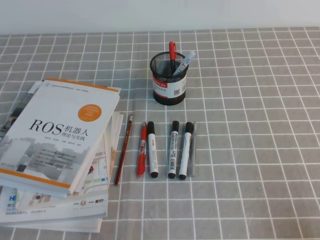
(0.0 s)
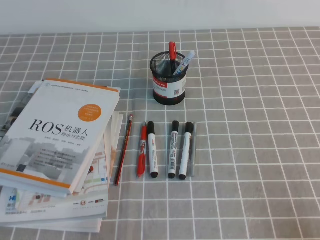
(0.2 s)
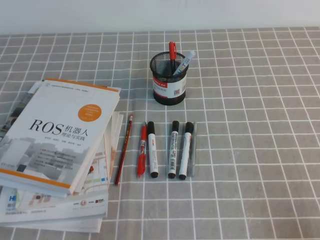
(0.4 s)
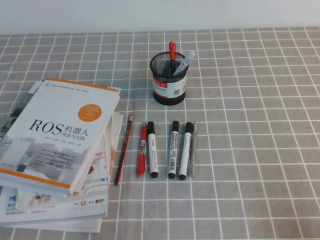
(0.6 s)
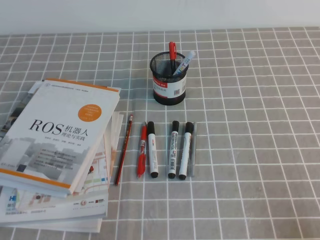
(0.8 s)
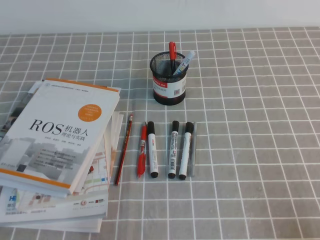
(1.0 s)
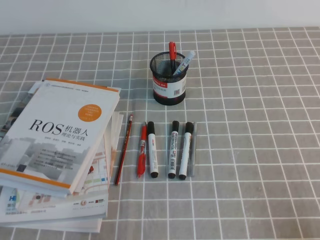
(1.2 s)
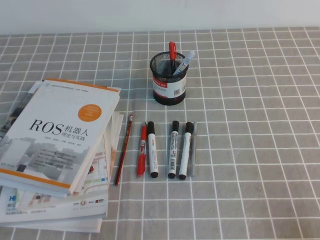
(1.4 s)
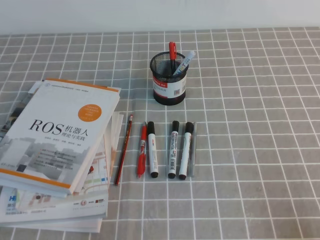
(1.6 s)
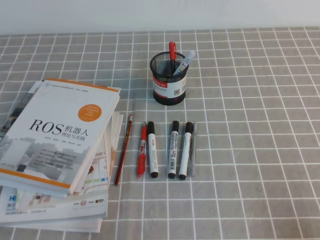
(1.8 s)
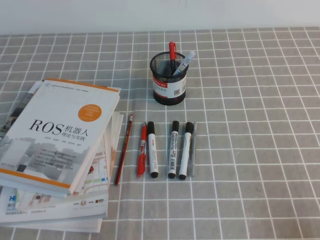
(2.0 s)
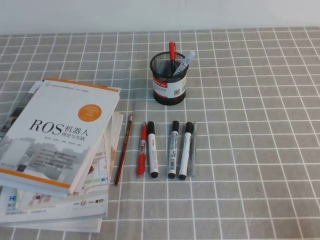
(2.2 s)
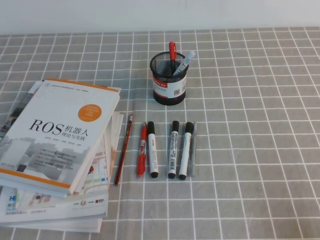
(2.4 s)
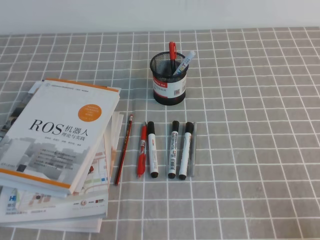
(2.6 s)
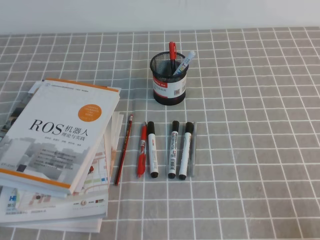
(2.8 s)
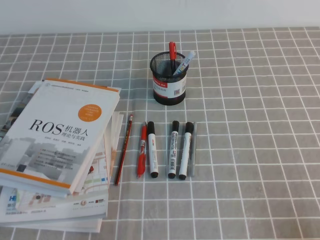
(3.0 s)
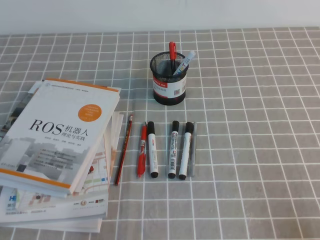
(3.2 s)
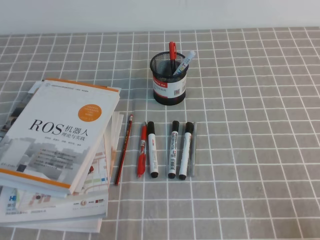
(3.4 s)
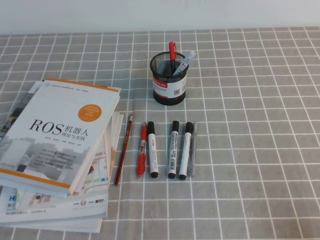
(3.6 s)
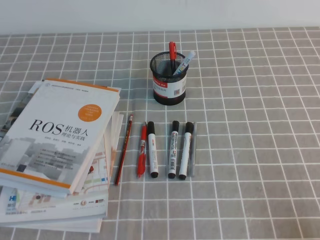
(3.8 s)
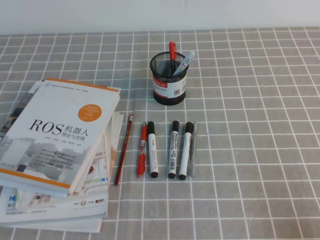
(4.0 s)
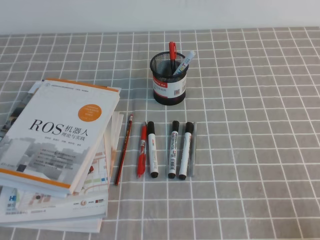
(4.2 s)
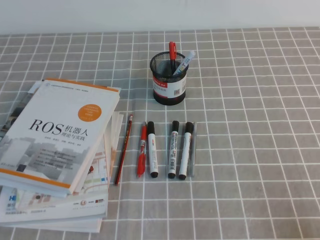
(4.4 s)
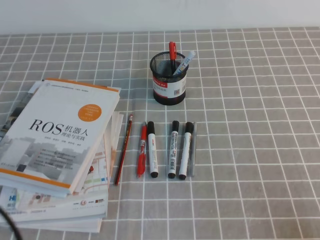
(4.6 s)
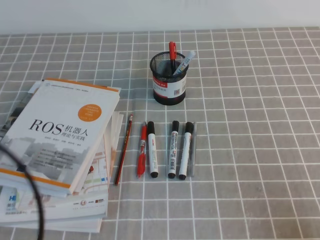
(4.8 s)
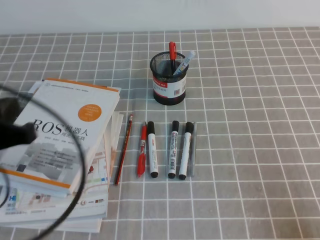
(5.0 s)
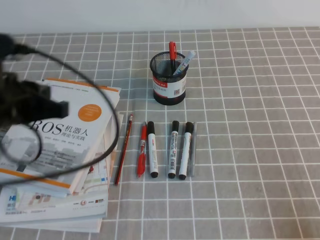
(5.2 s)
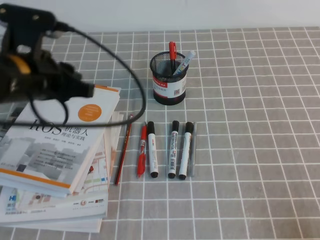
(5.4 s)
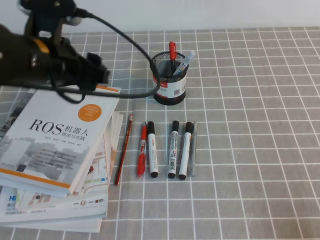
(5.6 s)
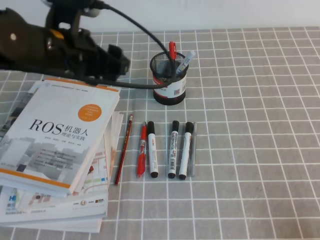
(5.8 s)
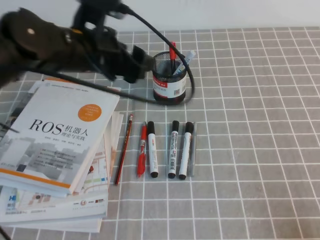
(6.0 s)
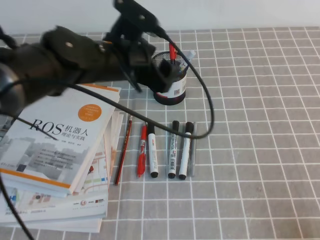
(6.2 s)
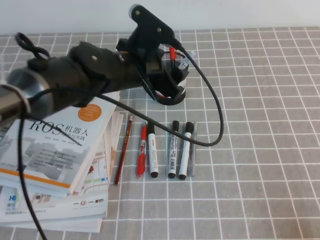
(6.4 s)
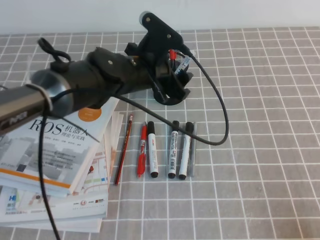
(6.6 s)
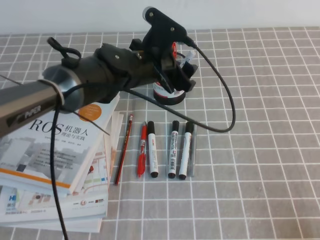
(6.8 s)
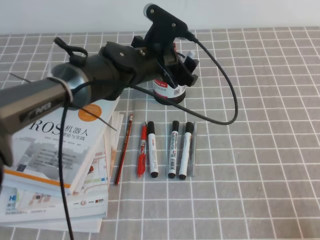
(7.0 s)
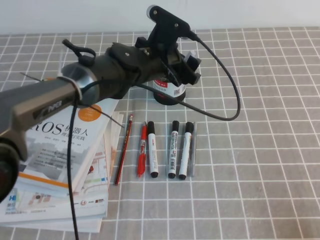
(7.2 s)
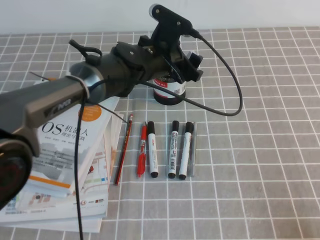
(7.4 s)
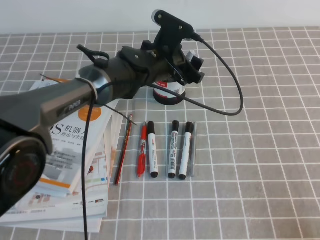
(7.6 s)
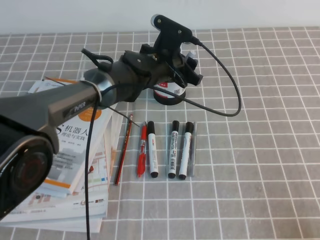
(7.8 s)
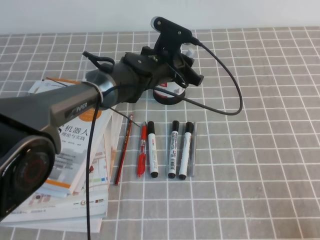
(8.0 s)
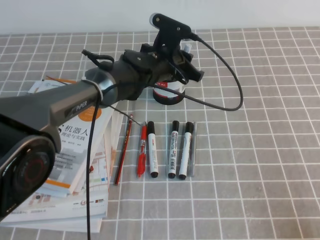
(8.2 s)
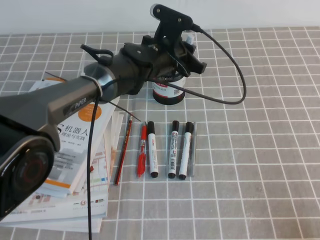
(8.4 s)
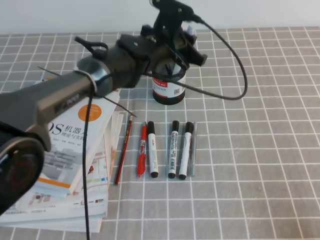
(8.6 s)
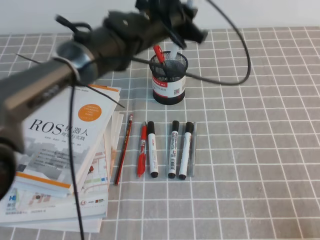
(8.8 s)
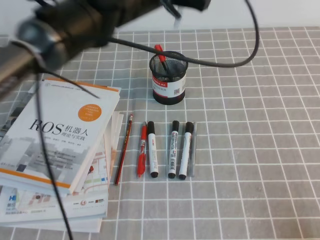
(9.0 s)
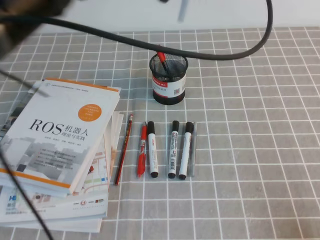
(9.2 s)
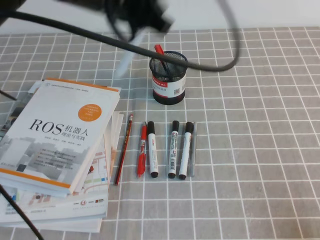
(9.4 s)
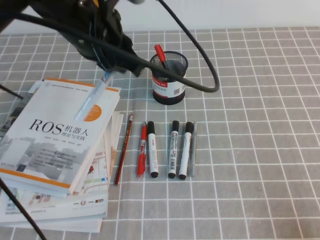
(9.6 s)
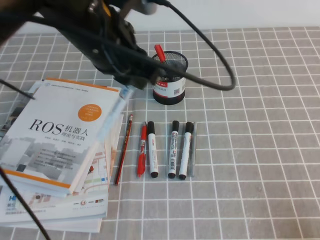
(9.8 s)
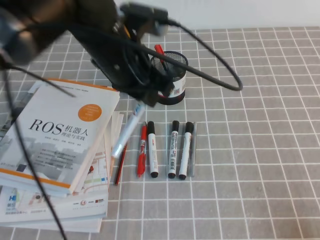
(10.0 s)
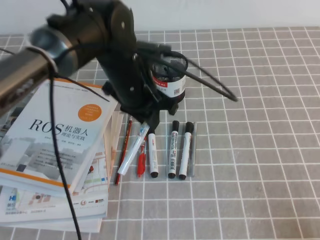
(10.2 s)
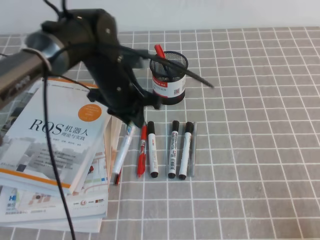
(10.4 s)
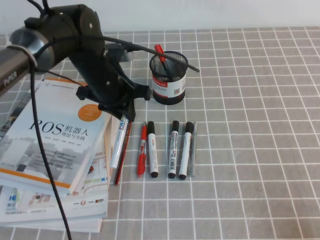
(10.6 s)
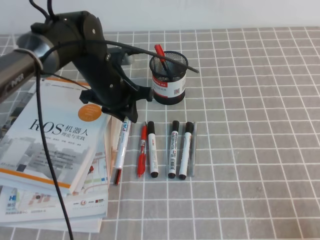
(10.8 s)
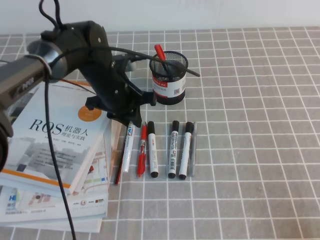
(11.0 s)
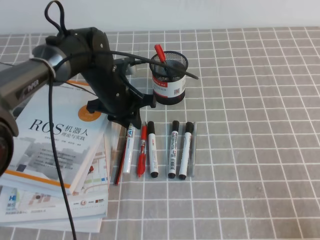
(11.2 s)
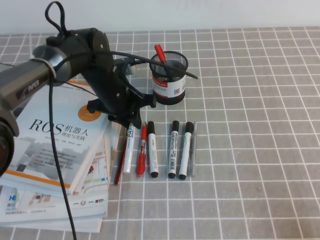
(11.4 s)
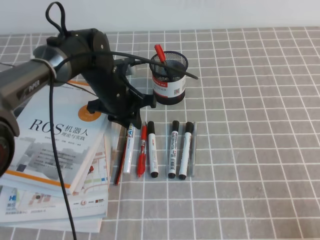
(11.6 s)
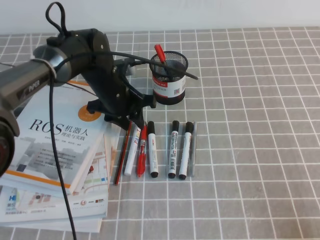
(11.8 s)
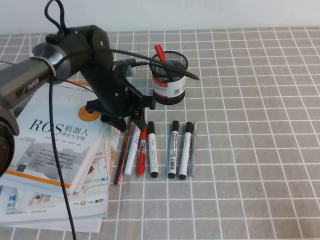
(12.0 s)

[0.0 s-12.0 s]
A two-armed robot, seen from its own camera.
0.0 to 1.6 s: The two grippers keep their place.
4.4 to 6.0 s: The left gripper goes roughly 30 cm forward and to the right, and opens its fingers.
6.0 to 7.6 s: The left gripper shifts roughly 15 cm to the right, downward and forward.
7.6 to 9.0 s: The left gripper shifts roughly 15 cm upward, and closes its fingers.
9.0 to 10.4 s: The left gripper shifts some 15 cm downward and to the left.
10.4 to 12.0 s: The left gripper moves roughly 5 cm, and opens its fingers.

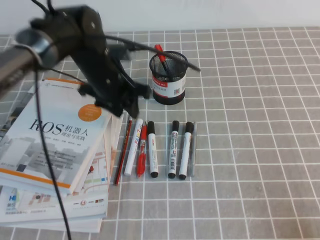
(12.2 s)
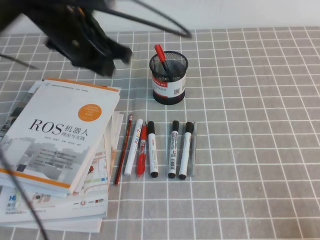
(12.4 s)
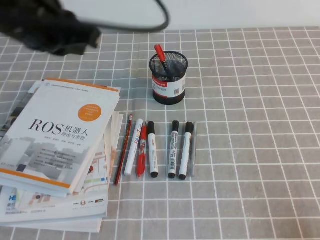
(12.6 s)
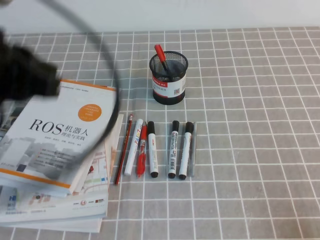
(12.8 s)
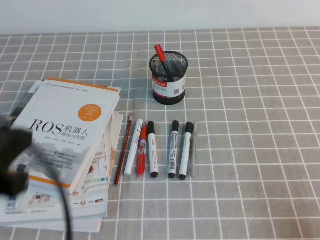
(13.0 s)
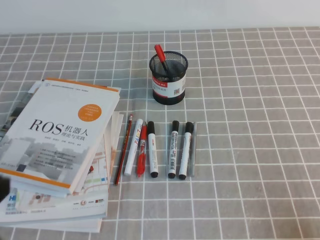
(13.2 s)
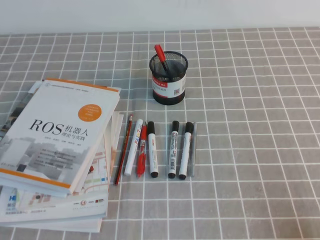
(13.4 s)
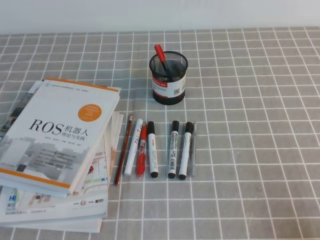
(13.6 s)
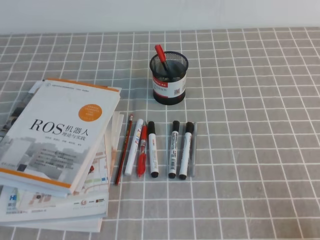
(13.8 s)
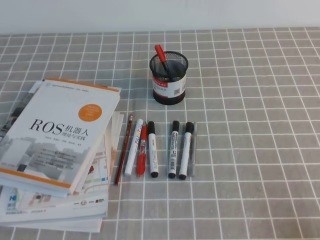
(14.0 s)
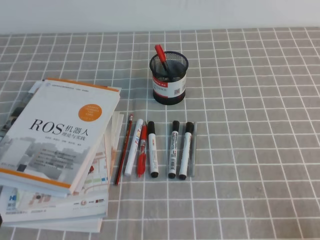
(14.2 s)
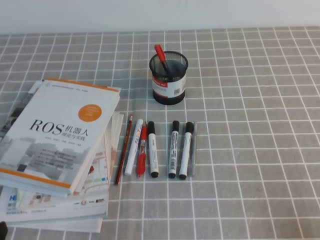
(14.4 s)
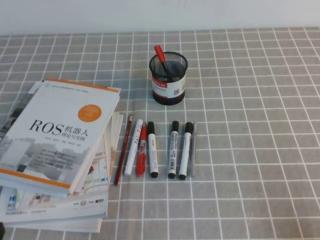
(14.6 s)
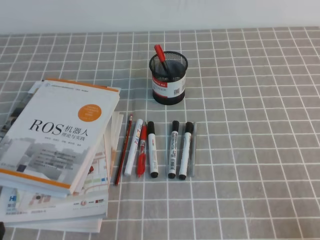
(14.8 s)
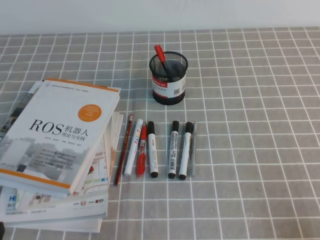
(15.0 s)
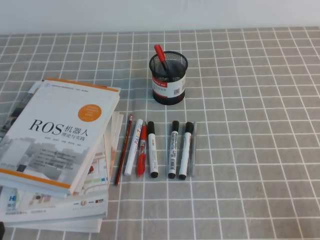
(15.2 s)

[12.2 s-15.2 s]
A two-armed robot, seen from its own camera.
Step, 12.2 to 15.2 s: Pick up the pen from the pen holder.
12.2 to 13.8 s: The left gripper moves backward and to the left, about 40 cm, and closes its fingers.
13.8 to 15.2 s: The left gripper heads downward, covering roughly 15 cm.
